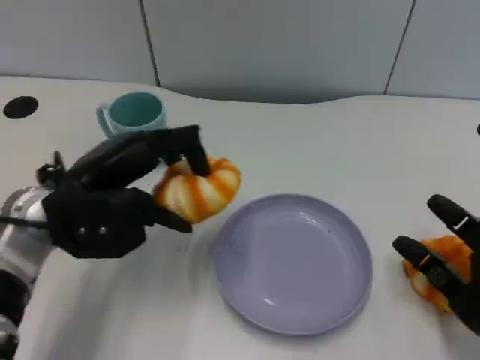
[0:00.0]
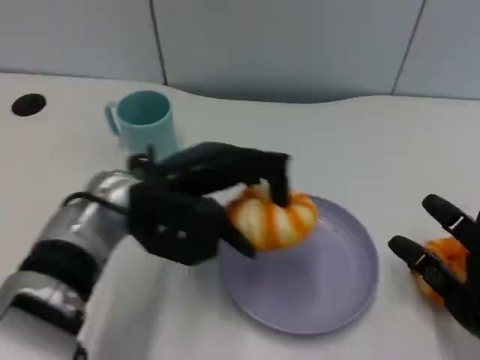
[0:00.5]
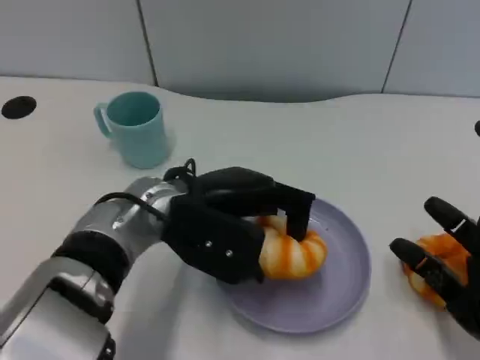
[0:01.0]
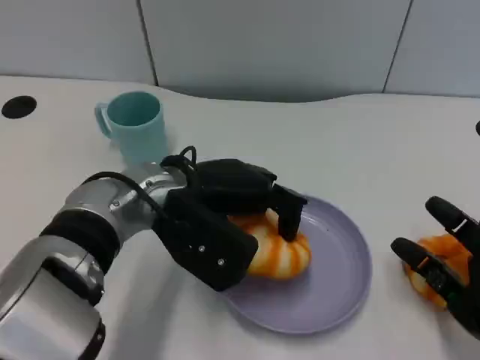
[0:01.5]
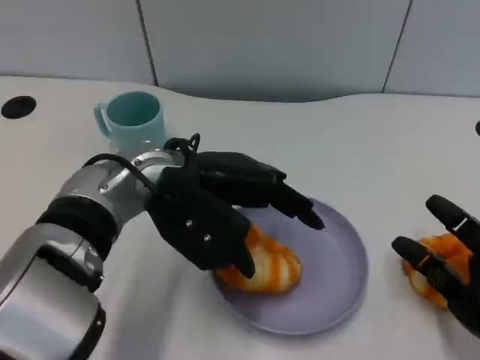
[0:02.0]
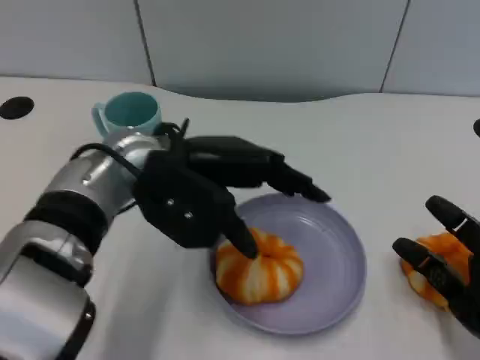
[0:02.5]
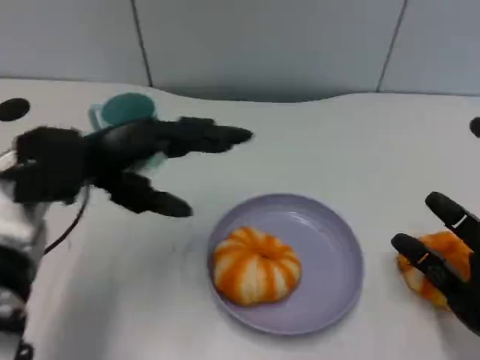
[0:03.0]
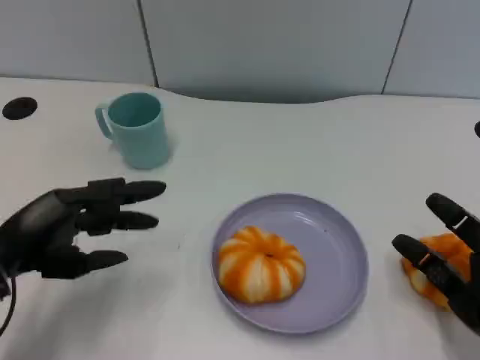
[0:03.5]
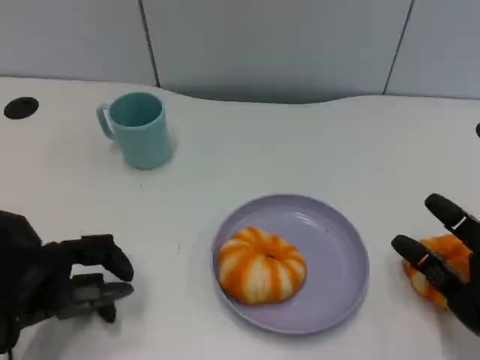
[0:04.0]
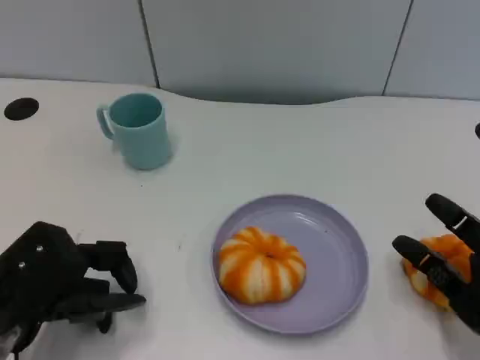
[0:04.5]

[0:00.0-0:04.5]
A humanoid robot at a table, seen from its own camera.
Task of the whole recording: Grasp the bread from the table and place it into the plate.
0:00.0 to 0:02.0: The left hand moves to the right, approximately 10 cm.
0:02.0 to 0:04.5: The left hand heads to the left, backward and downward, covering some 20 cm.

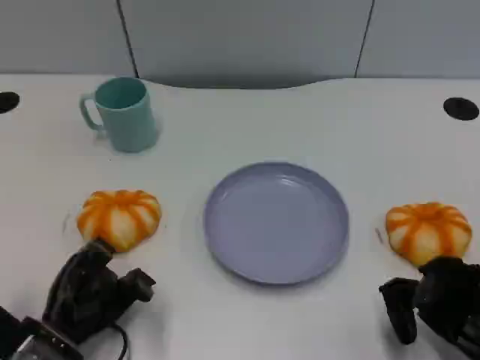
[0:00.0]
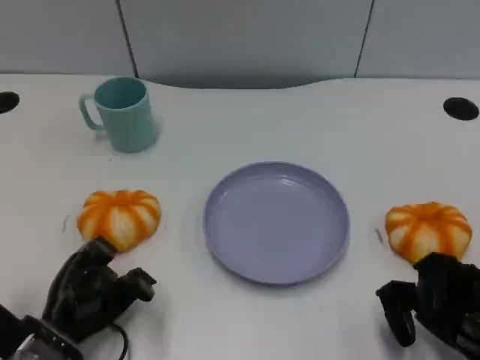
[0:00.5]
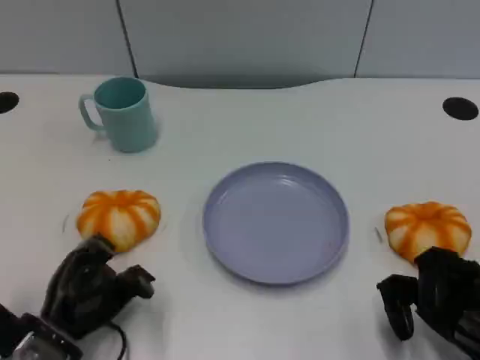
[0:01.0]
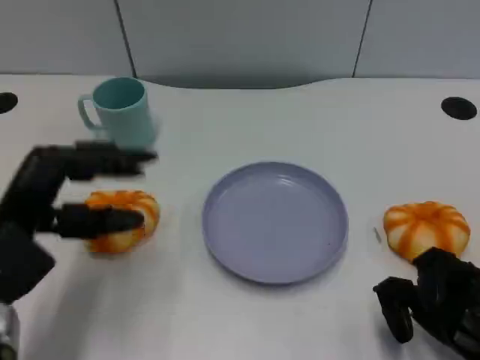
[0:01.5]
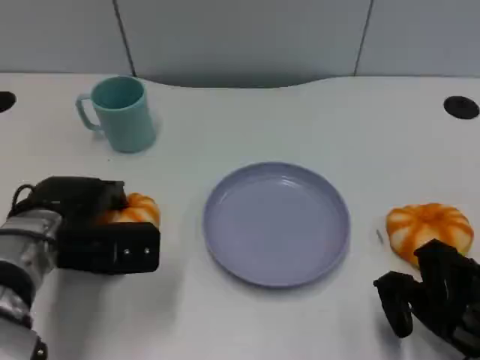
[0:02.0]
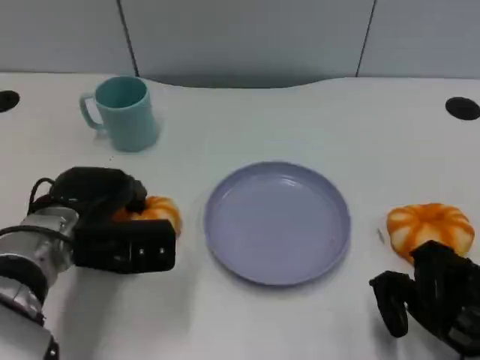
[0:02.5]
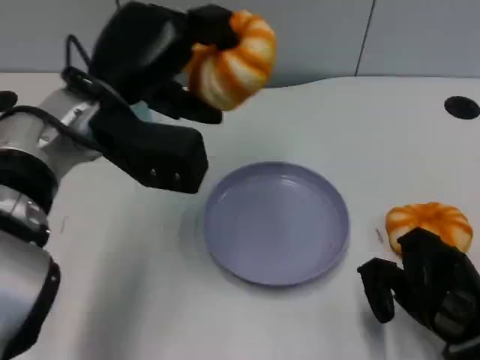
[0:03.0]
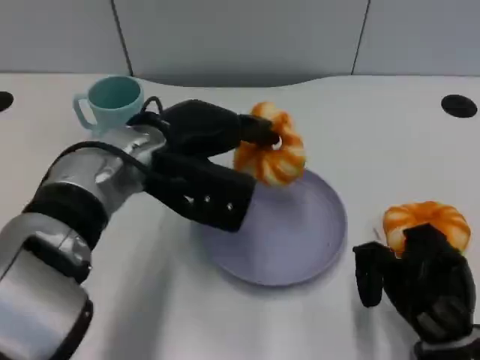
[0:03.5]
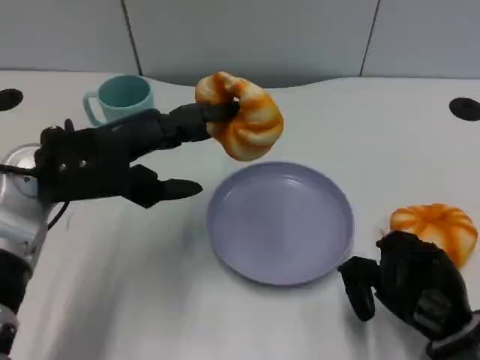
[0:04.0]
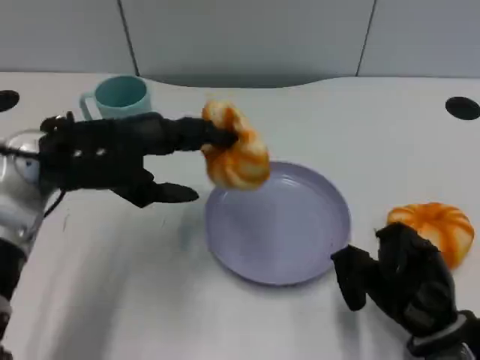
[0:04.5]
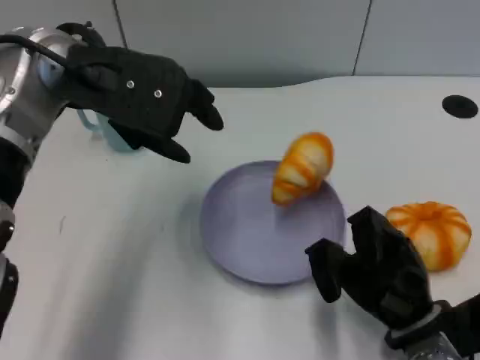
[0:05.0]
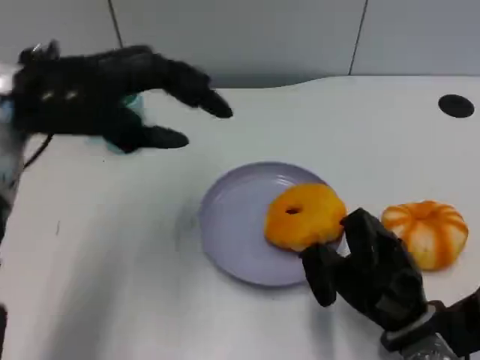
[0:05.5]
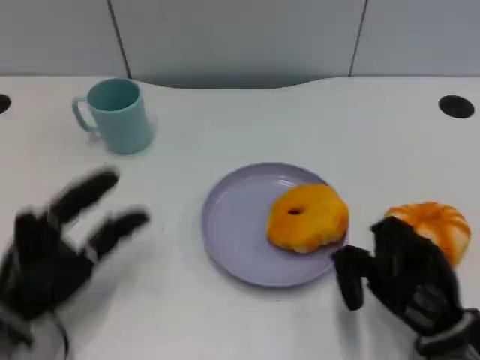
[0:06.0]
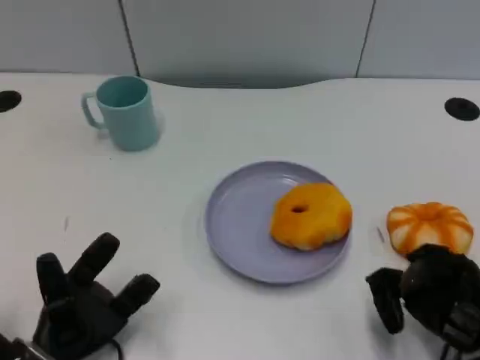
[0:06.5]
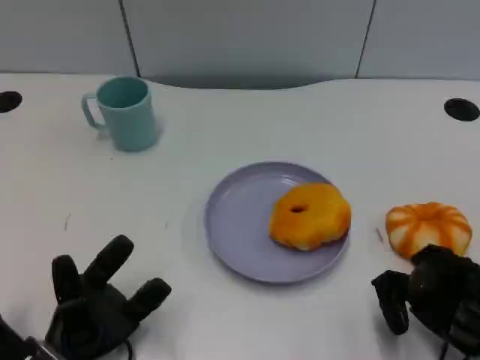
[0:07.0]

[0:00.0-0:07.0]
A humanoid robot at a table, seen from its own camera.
Task of the whole recording: Grasp the bread from the table and place it into the plate.
0:00.0 to 0:02.0: The left hand is displaced upward and forward by roughly 10 cm.
0:02.0 to 0:03.5: The left hand goes about 15 cm to the right and upward, while the right hand heads to the left, covering some 5 cm.
0:03.5 to 0:05.0: The left hand is displaced upward by about 10 cm.
0:05.0 to 0:07.0: The right hand is displaced to the right by about 10 cm. Meanwhile the left hand moves downward and backward, about 30 cm.

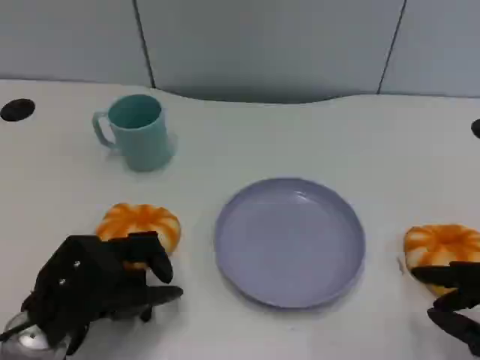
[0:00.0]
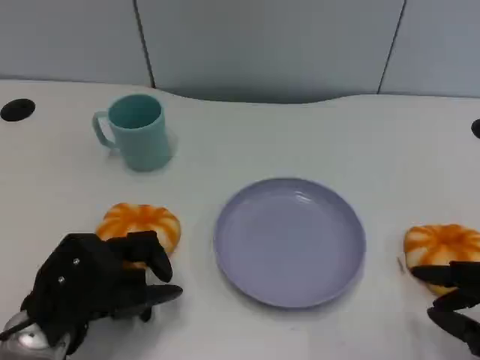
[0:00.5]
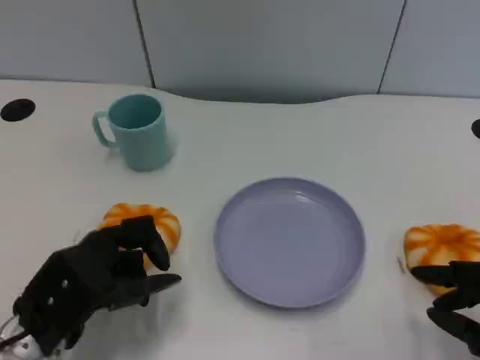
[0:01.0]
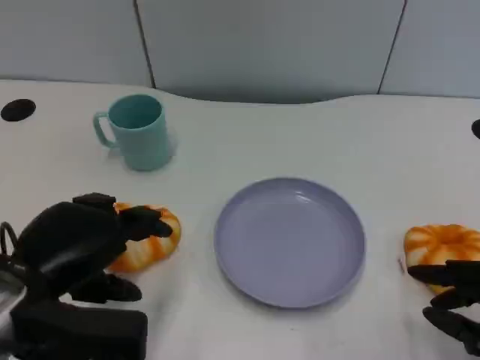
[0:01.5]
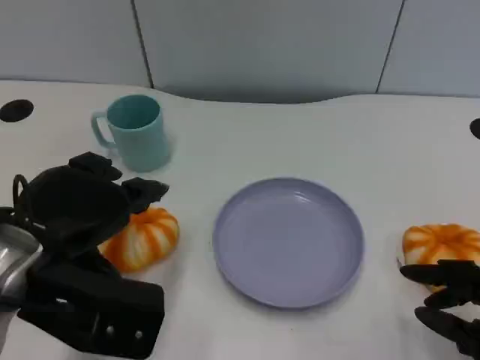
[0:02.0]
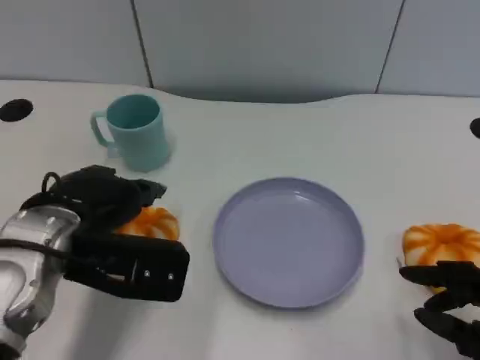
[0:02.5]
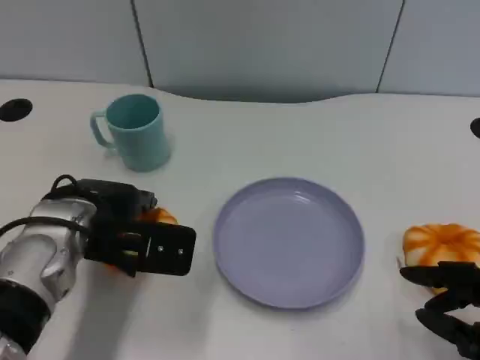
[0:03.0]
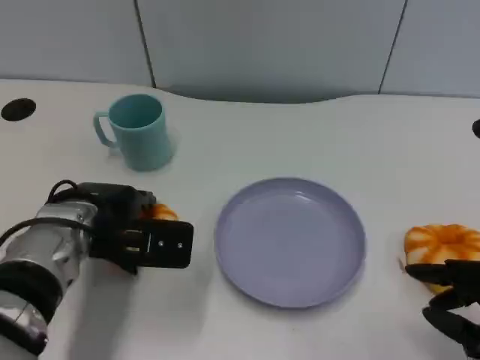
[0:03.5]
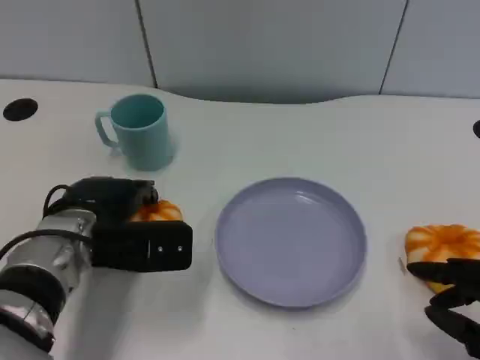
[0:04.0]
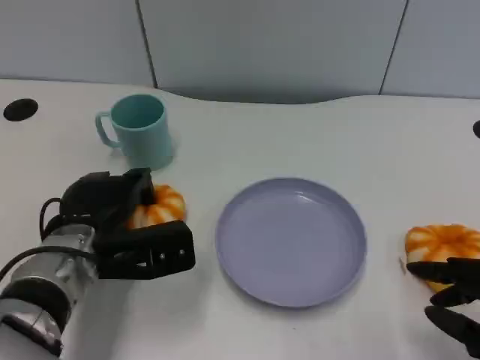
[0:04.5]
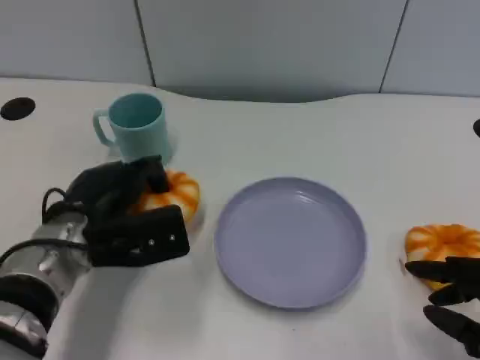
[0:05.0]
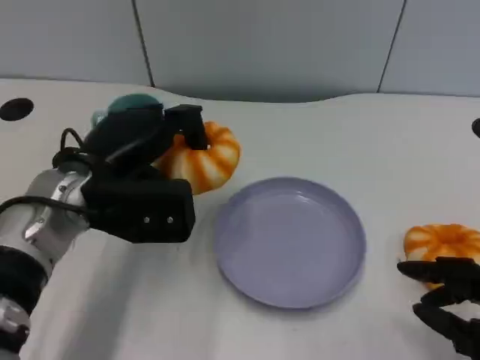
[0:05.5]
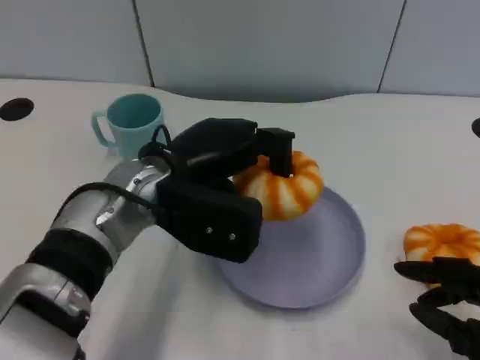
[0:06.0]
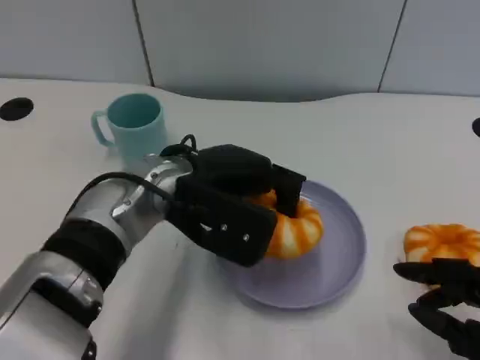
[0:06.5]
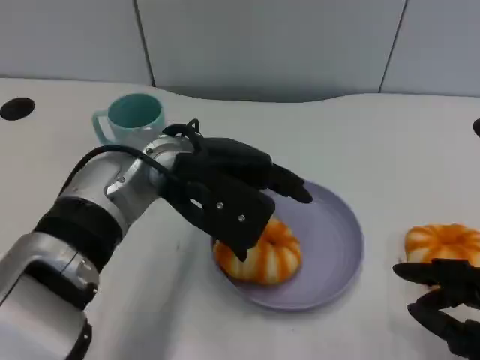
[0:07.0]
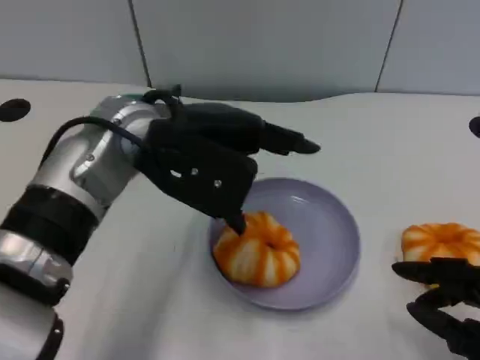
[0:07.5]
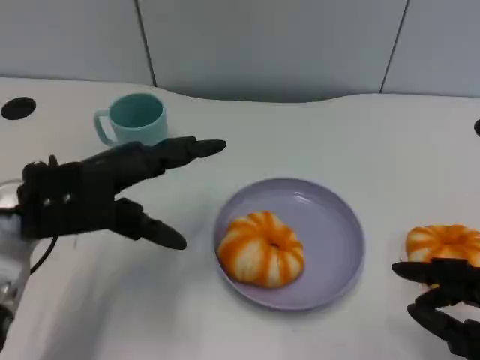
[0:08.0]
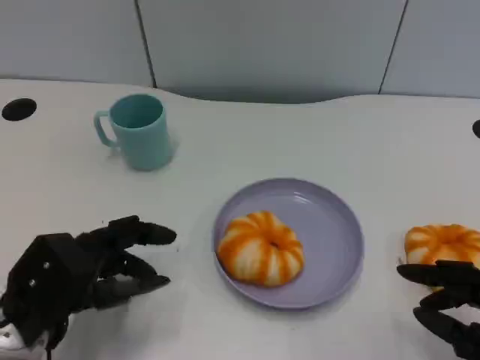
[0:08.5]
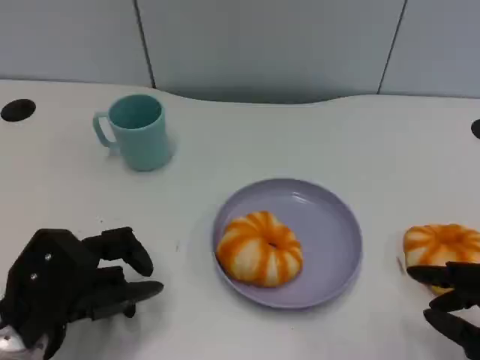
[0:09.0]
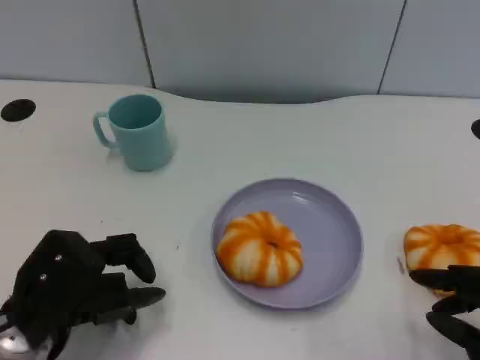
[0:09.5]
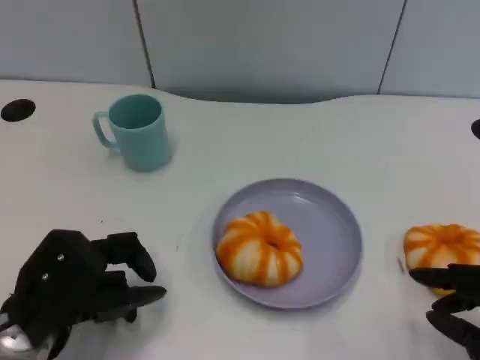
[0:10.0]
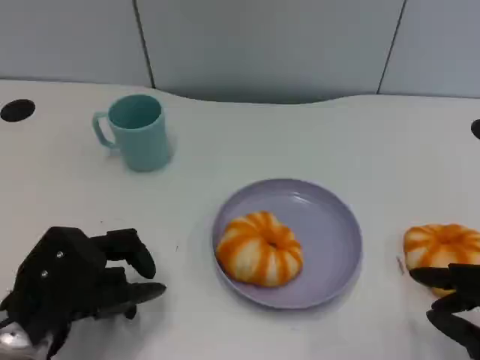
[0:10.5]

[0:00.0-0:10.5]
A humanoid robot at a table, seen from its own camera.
Task of the whole recording: Grasp the bread from the table and place it into the plate.
0:00.0 to 0:02.0: The left hand moves upward, roughly 10 cm.
0:02.0 to 0:04.0: The left hand travels downward and forward by about 15 cm.
0:04.0 to 0:06.5: The left hand is displaced to the right and upward by approximately 10 cm.
0:06.5 to 0:08.5: The left hand goes some 20 cm to the left, backward and downward.
0:08.5 to 0:10.5: The hands move only a little.

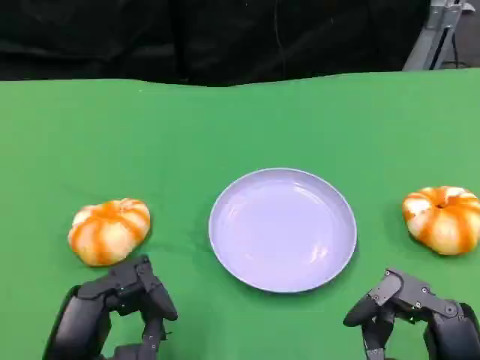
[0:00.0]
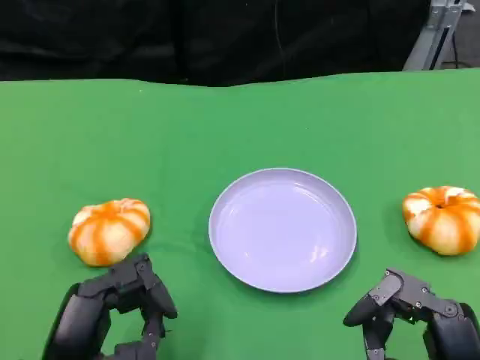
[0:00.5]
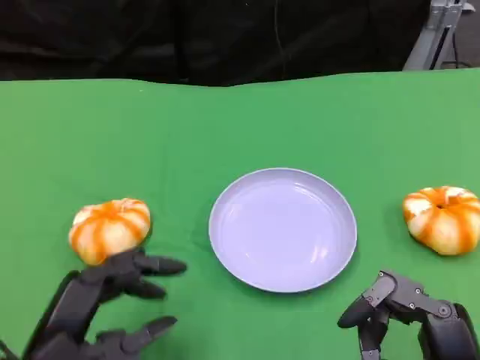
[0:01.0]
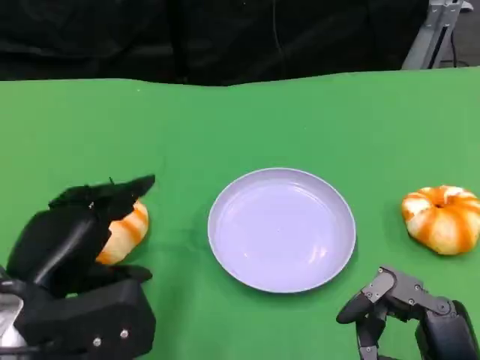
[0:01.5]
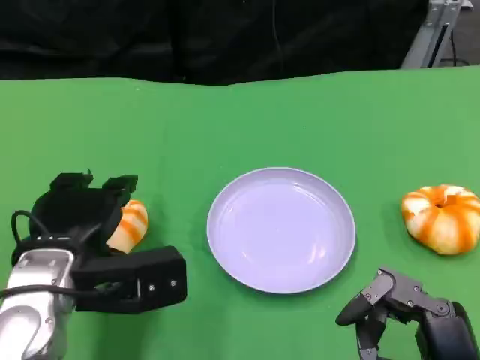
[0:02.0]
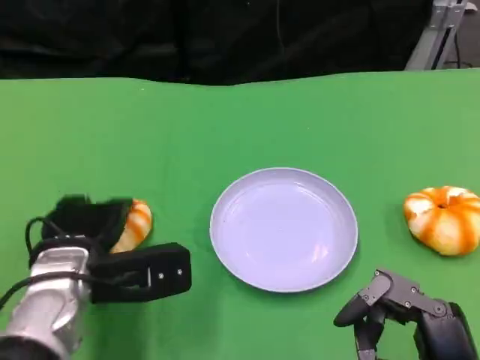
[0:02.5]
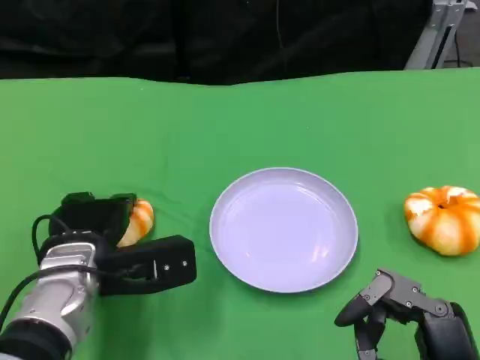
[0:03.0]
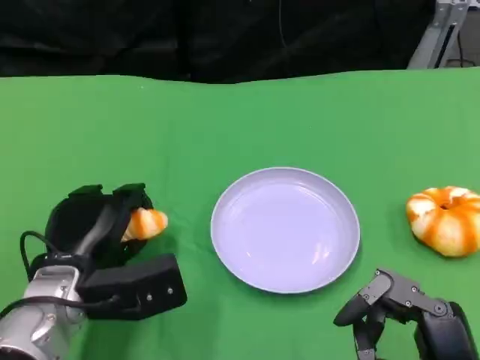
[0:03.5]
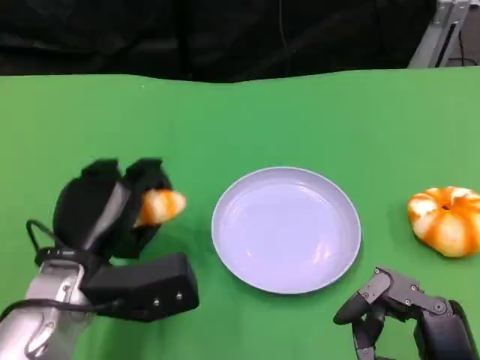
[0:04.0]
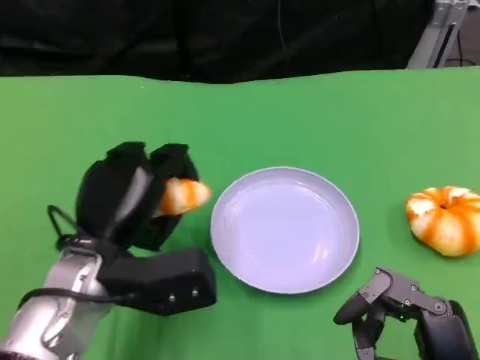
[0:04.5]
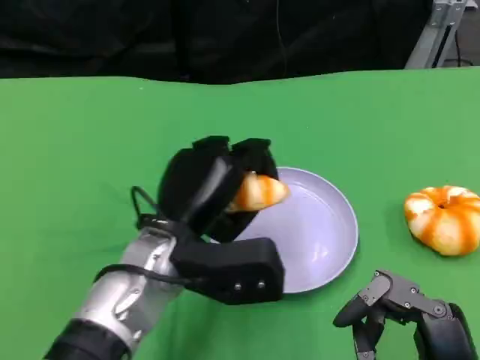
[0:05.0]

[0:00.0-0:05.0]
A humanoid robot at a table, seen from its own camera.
Task of the whole recording: Grasp the bread from the table and place it into the plate.
0:00.0 to 0:02.5: The left hand moves forward, about 15 cm.
0:02.5 to 0:05.0: The left hand travels to the right by some 10 cm.
